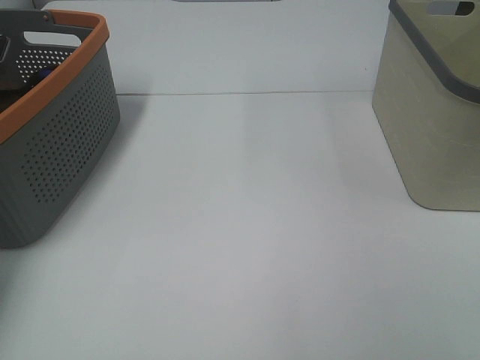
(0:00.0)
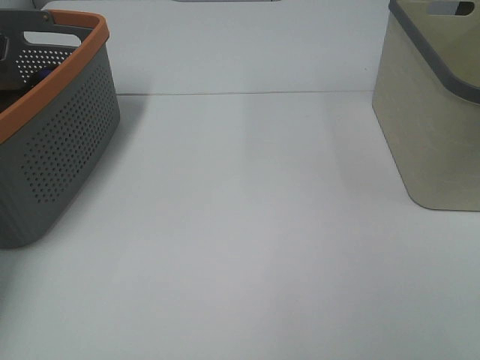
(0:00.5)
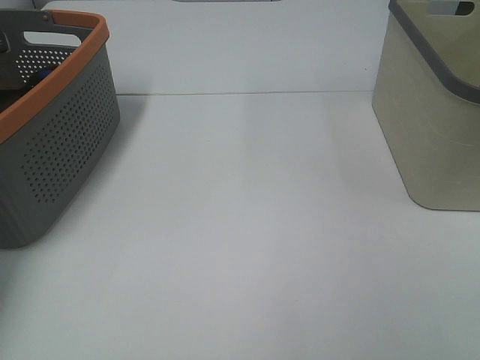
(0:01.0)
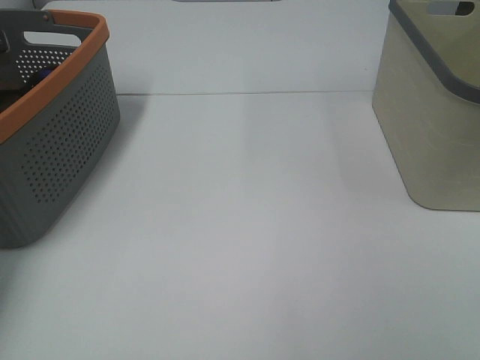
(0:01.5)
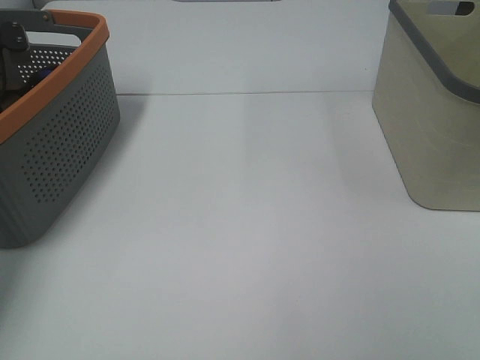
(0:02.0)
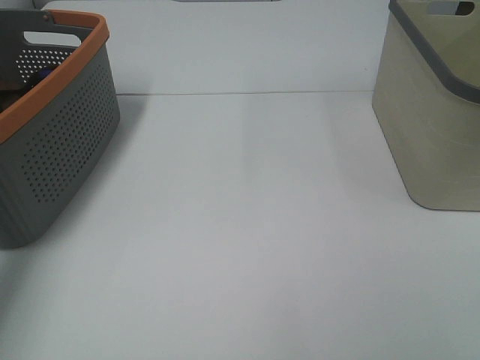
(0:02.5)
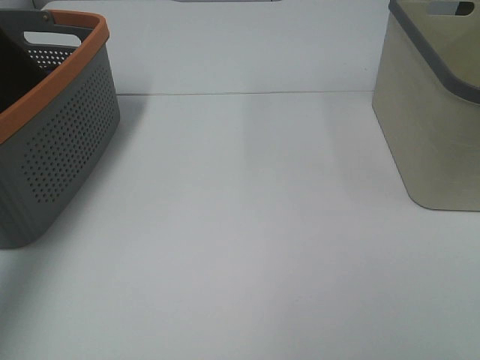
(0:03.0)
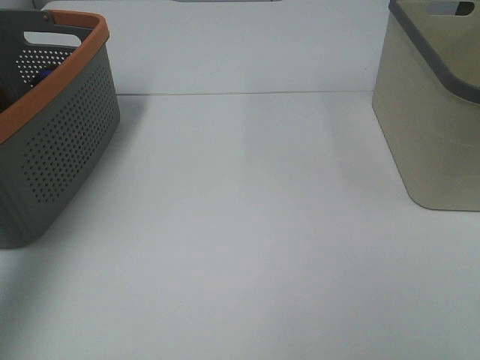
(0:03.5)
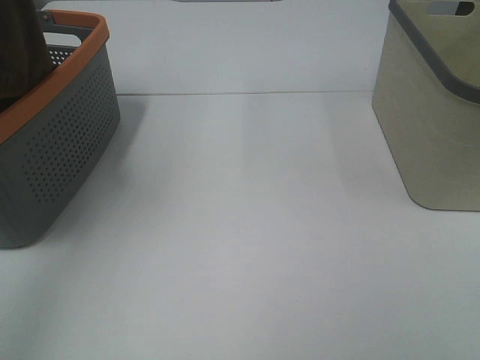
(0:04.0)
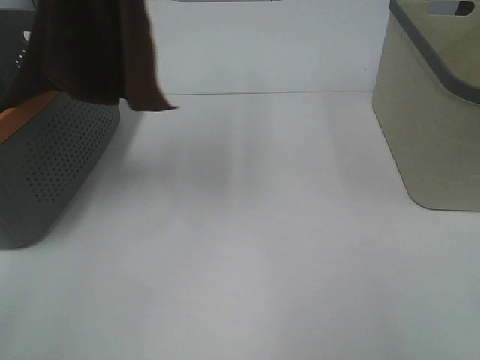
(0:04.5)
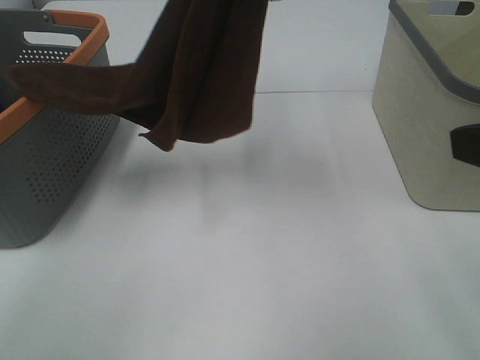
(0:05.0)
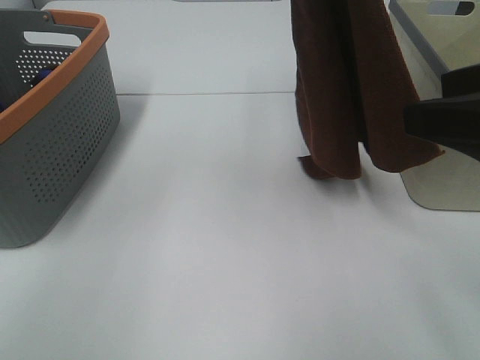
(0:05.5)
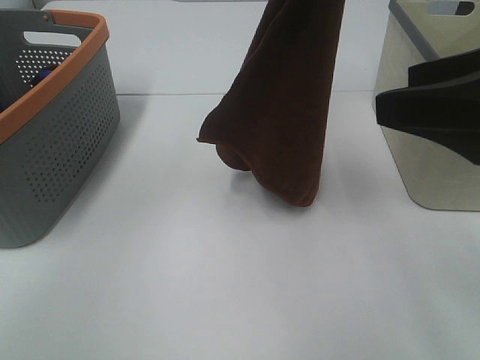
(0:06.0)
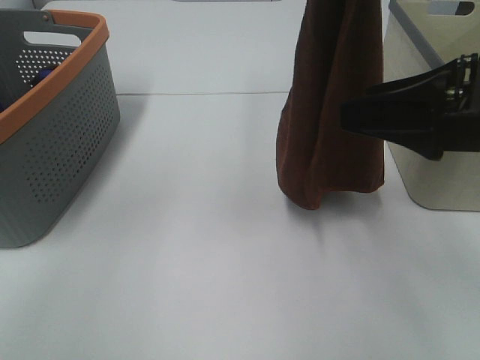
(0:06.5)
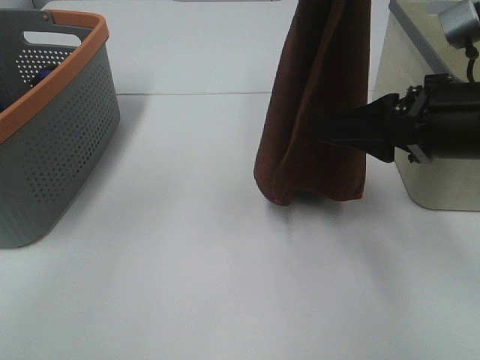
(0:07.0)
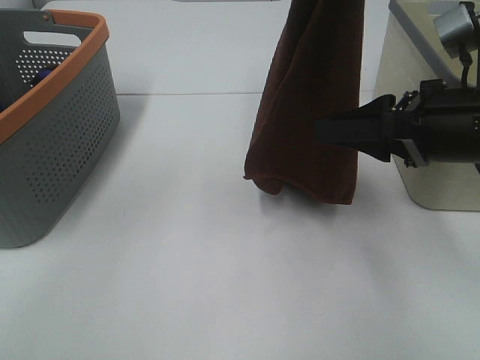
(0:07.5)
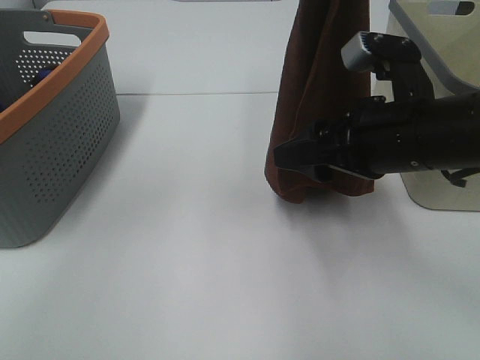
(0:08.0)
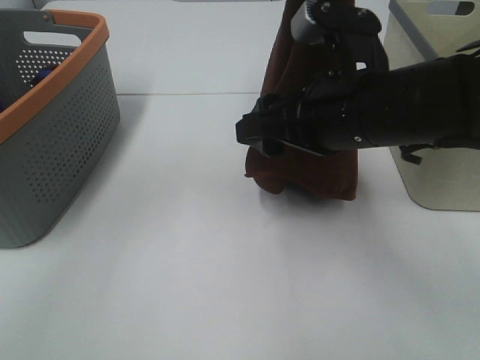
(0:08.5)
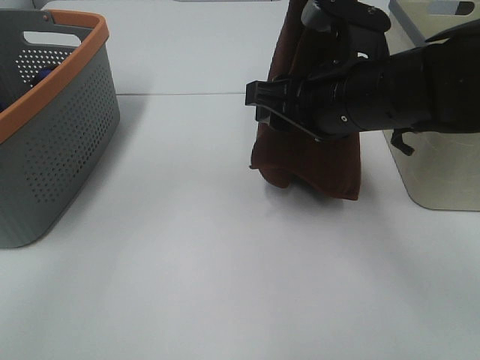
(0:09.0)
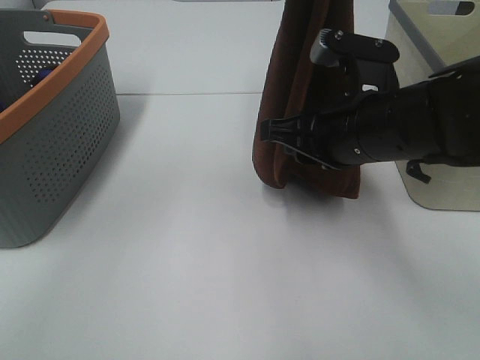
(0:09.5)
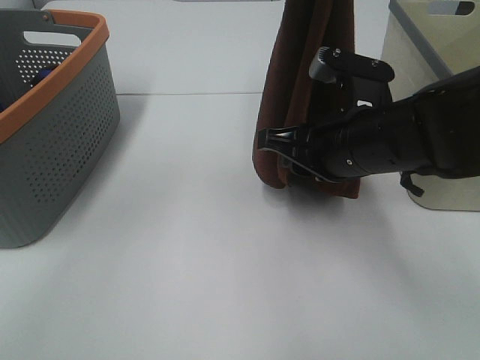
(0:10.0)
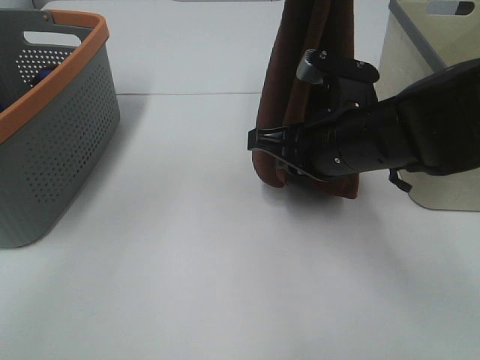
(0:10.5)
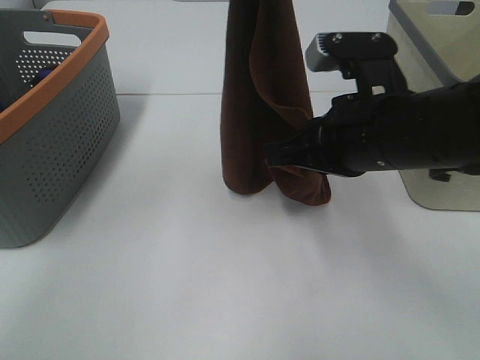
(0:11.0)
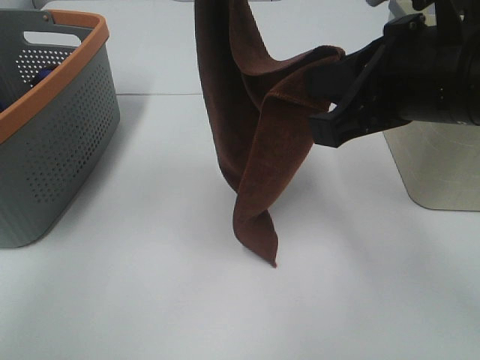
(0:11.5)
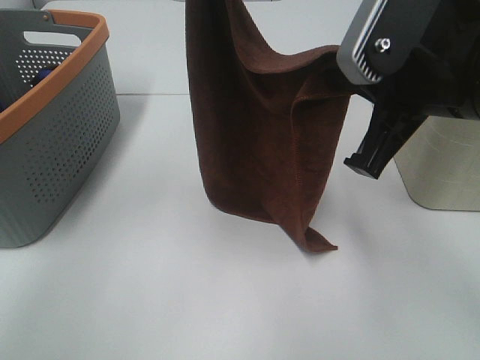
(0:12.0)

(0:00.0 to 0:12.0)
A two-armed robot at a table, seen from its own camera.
Task of the whole recording: Remove the towel and place it.
Step, 0:03.0 - 0:11.0: Right hand: grab a corner of the brown towel and straighten it.
0:02.0 - 0:04.0: The left gripper goes about 40 cm upward and backward.
0:04.0 - 0:06.0: The right gripper shifts about 20 cm forward. Meanwhile the left gripper goes approximately 30 cm to the right and downward.
0:06.0 - 0:08.0: The right gripper is displaced downward, forward and to the left by approximately 15 cm.
0:08.0 - 0:10.0: The right gripper closes its fingers.
0:10.0 - 0:12.0: The left gripper travels to the left by some 5 cm; the right gripper goes approximately 10 cm upward and backward, and closes its fingers.

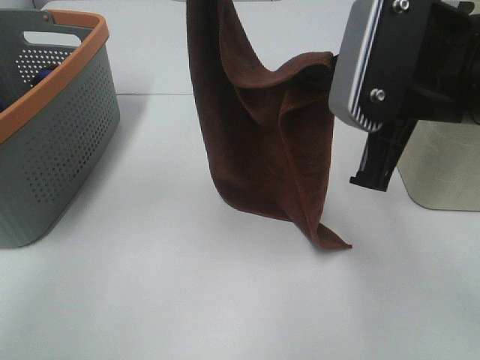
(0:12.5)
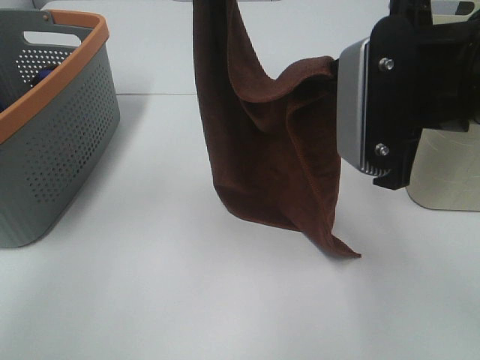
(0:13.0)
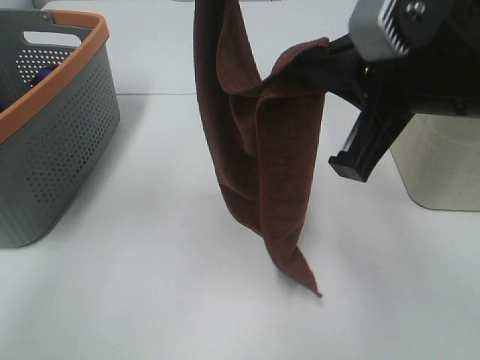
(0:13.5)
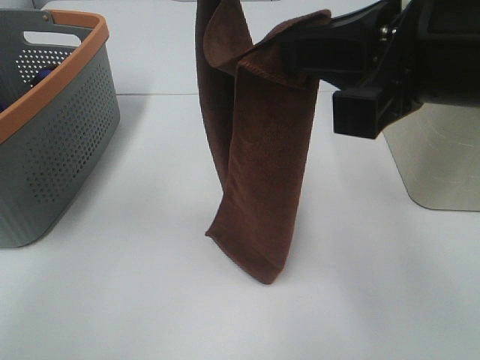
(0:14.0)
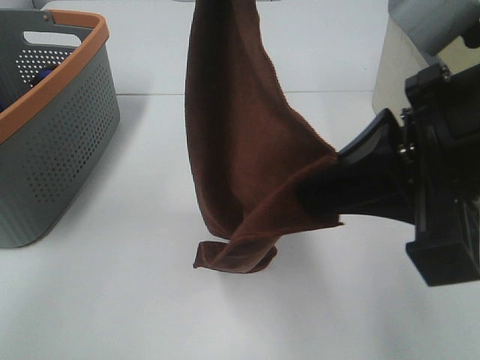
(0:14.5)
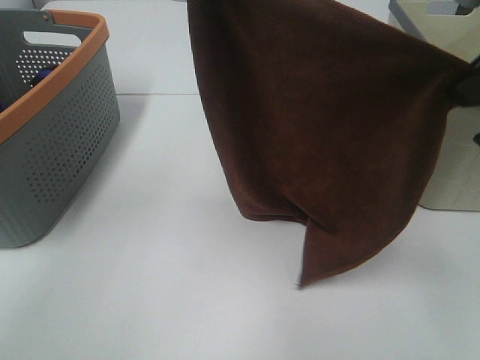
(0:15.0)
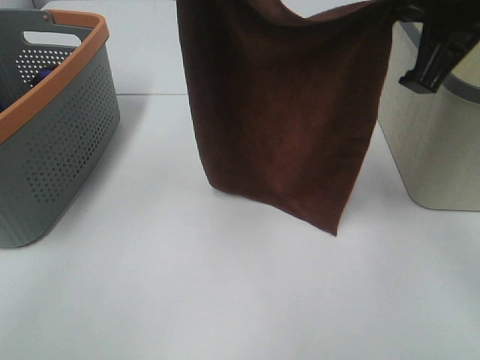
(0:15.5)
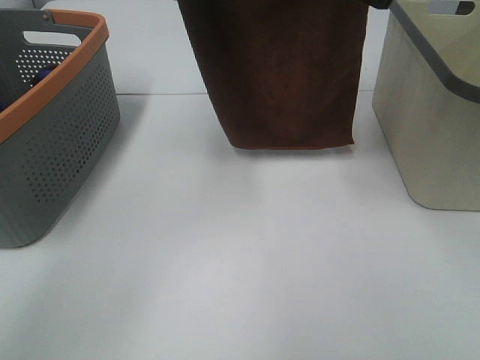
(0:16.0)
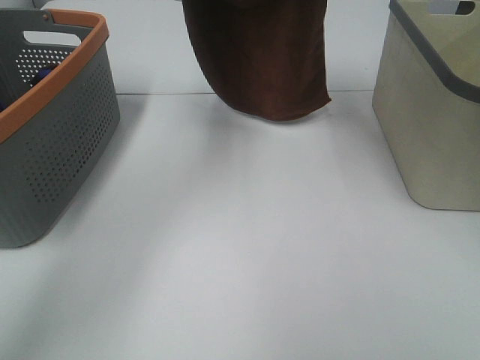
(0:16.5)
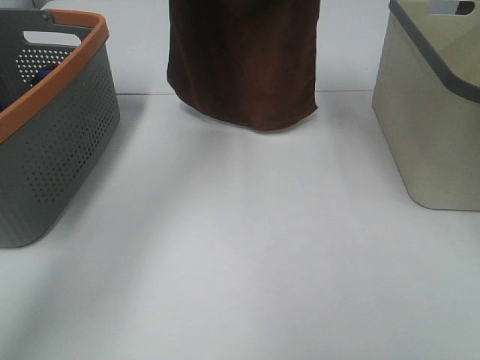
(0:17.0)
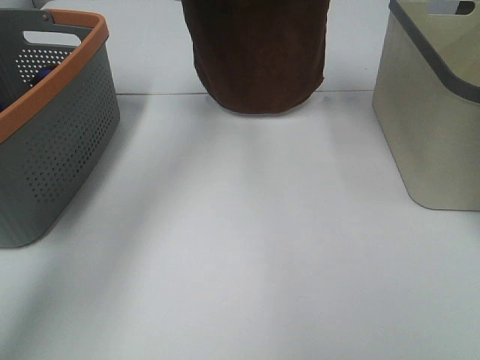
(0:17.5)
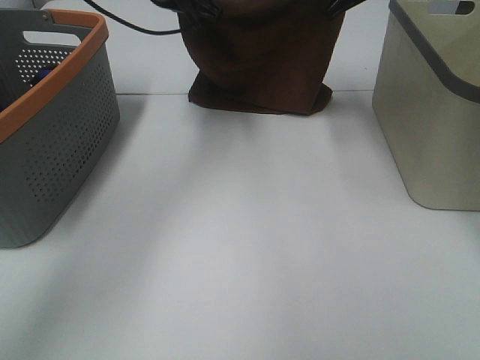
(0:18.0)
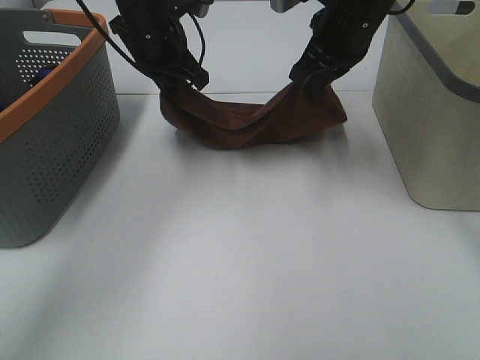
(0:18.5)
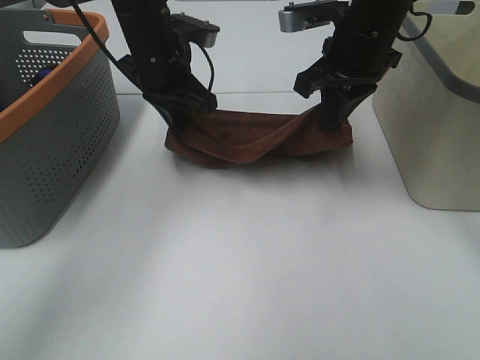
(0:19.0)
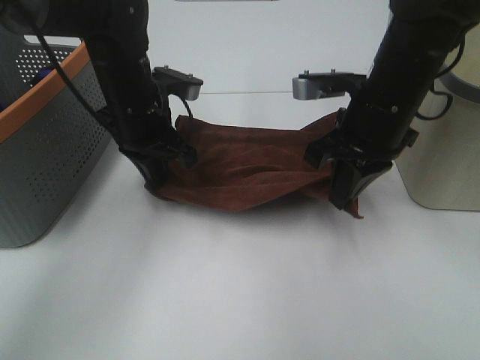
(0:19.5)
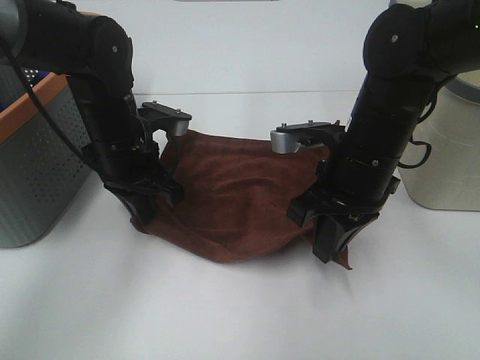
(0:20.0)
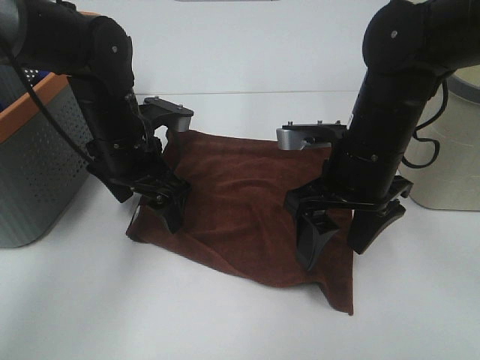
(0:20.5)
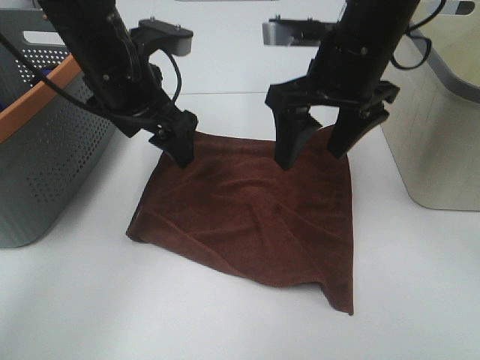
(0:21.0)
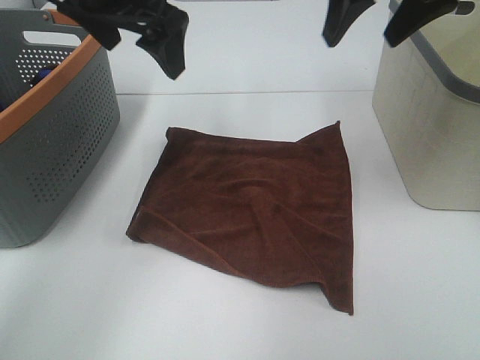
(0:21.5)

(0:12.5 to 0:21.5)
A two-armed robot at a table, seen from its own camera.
Task of the whole recording: Remove the towel and place it.
Step, 0:12.5 - 0:14.5: Right hand: spread the brown towel flat on the table.
0:12.5 - 0:14.5: The right gripper moves backward, some 5 cm.
0:14.5 - 0:17.0: The left gripper moves forward and downward, roughly 15 cm; the right gripper shifts about 30 cm forward.
0:17.0 - 0:19.5: Both grippers travel together downward and backward, roughly 20 cm.
0:19.5 - 0:21.5: The grippers both shift upward by some 15 cm. The left gripper opens its fingers. The right gripper opens.

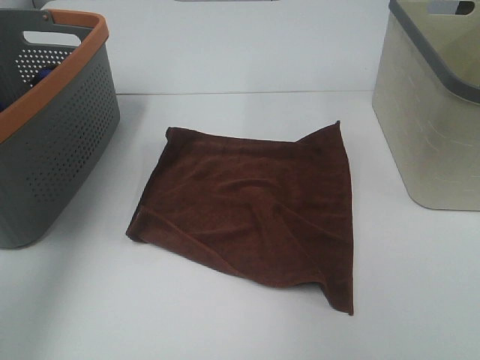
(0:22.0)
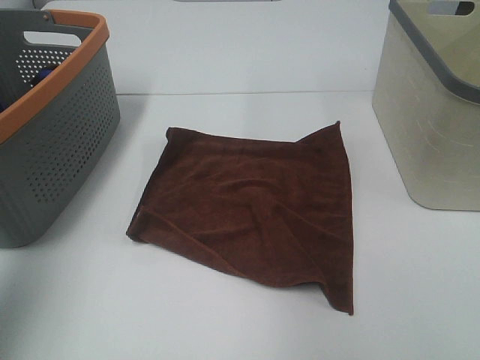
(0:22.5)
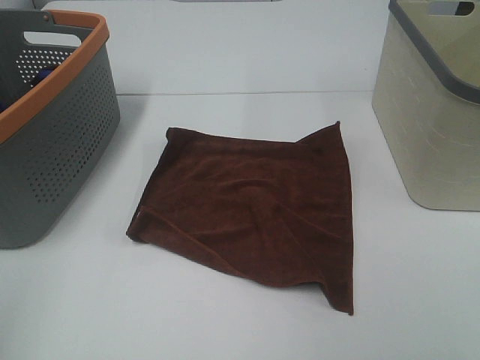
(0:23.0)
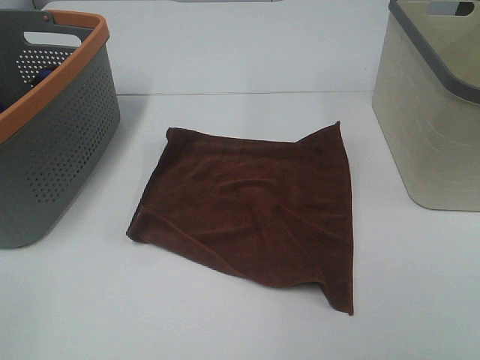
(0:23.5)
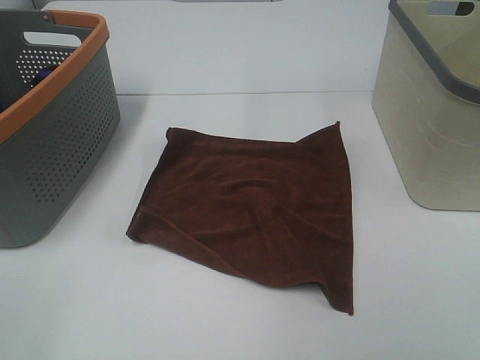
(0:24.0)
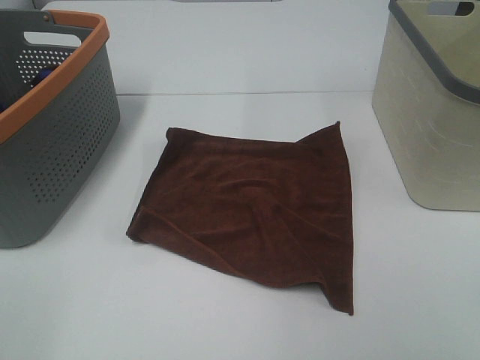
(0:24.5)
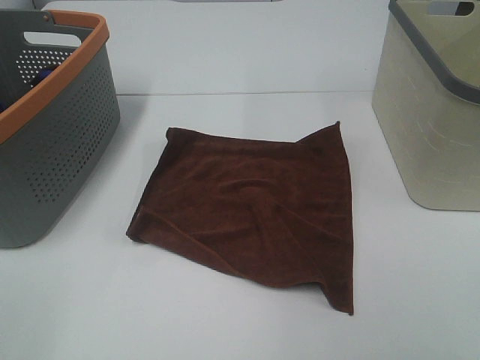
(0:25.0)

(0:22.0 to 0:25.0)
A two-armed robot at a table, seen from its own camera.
Task of the whole recording: Remove the towel and place it.
0:22.0 - 0:23.5: The left gripper goes roughly 35 cm backward.

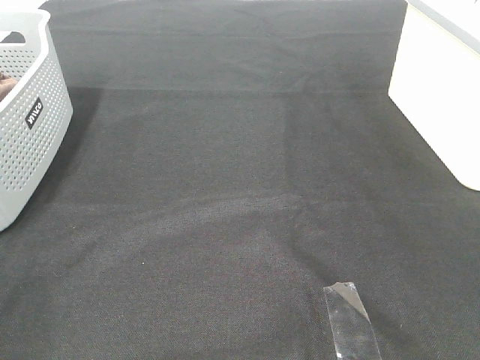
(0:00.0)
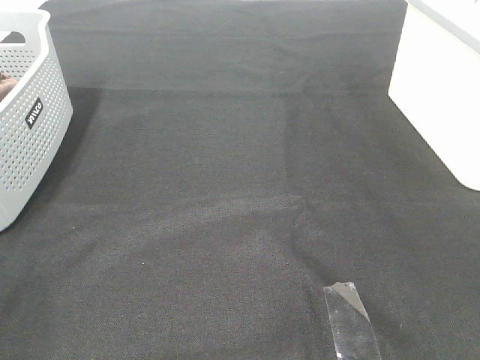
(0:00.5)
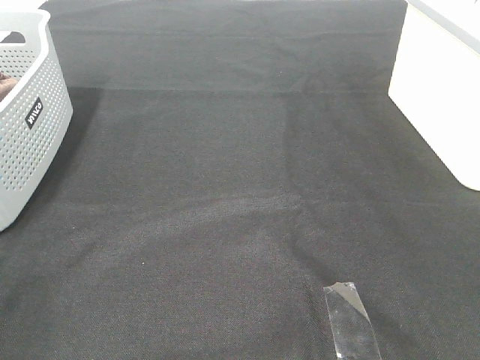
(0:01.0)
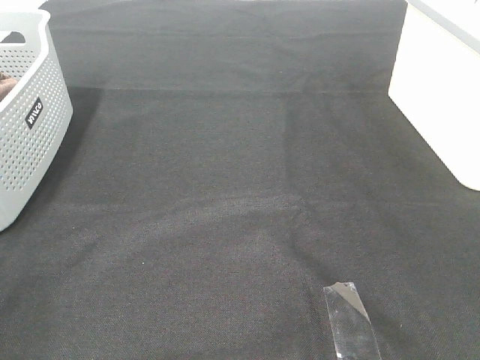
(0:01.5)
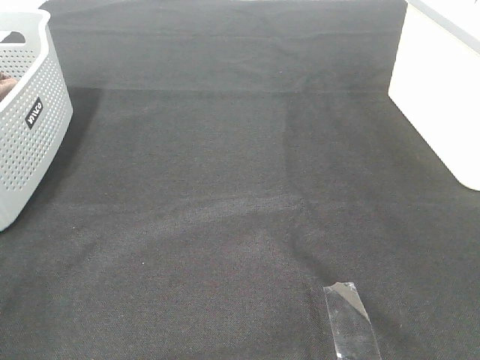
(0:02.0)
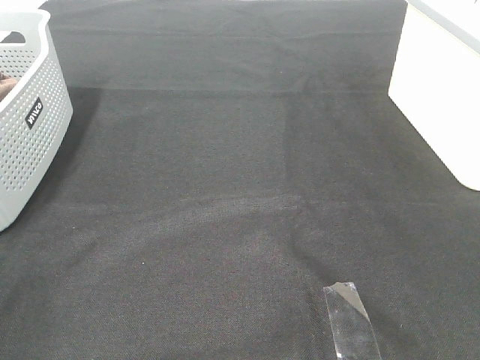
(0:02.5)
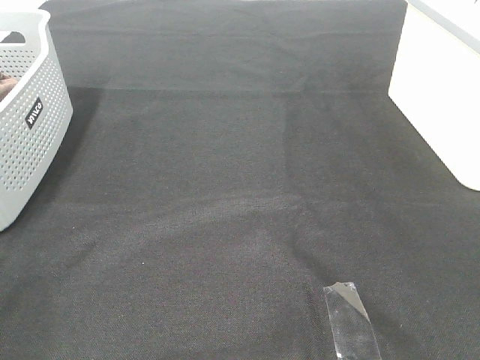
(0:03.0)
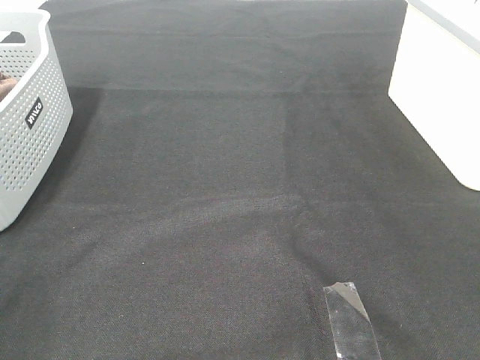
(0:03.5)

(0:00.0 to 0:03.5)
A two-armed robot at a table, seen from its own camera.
Task of the whole recording: Remove the towel and place it.
0:00.0 - 0:03.5: The two grippers keep their place.
